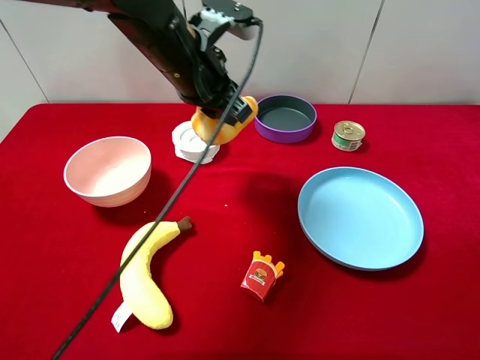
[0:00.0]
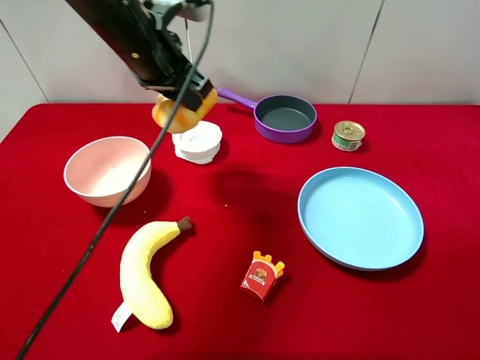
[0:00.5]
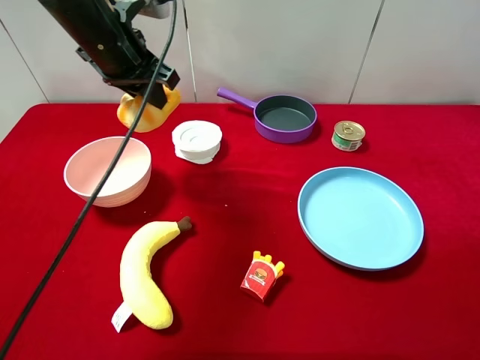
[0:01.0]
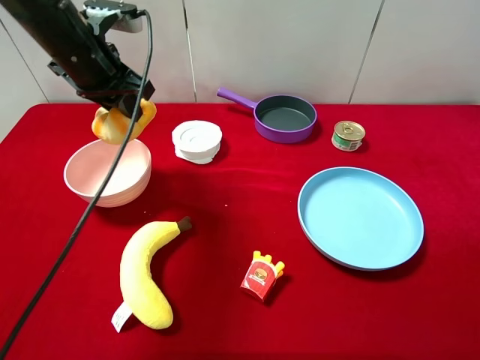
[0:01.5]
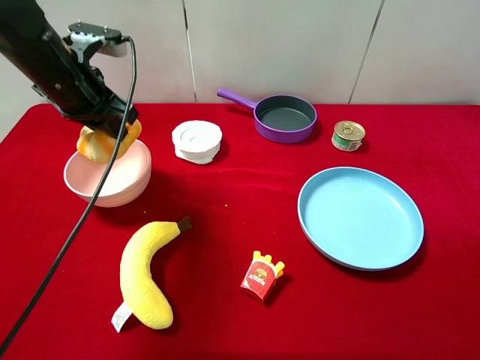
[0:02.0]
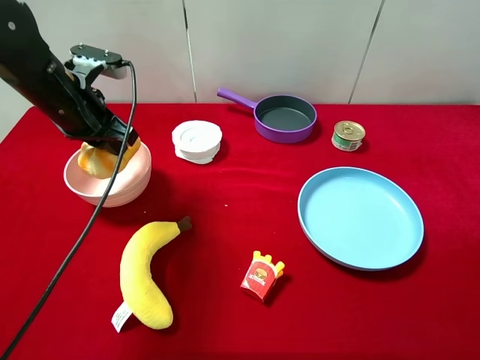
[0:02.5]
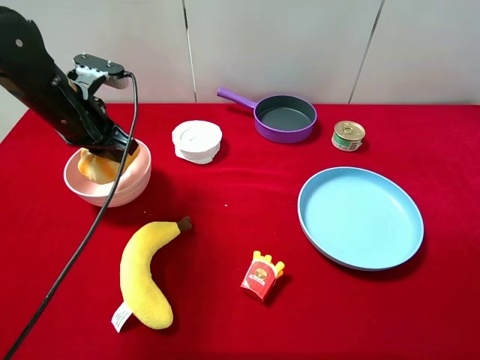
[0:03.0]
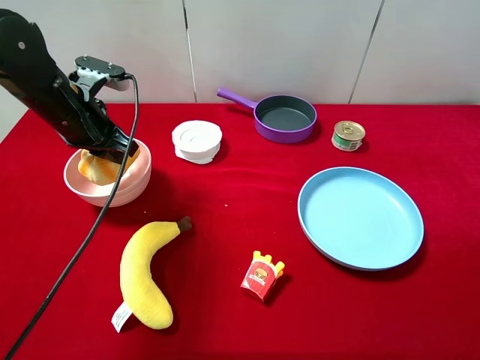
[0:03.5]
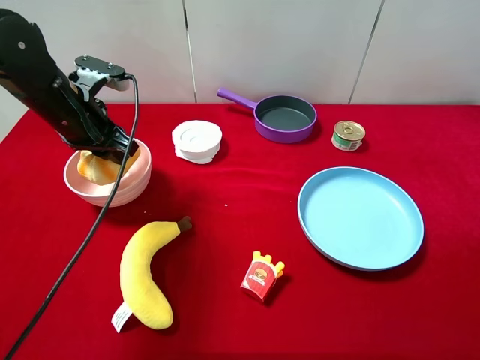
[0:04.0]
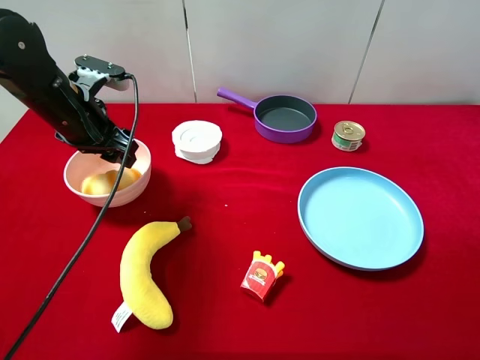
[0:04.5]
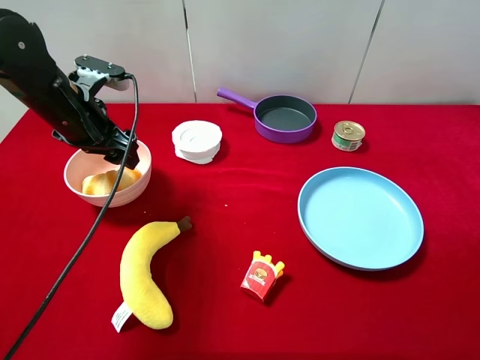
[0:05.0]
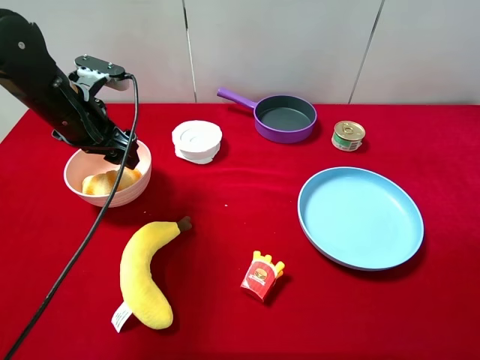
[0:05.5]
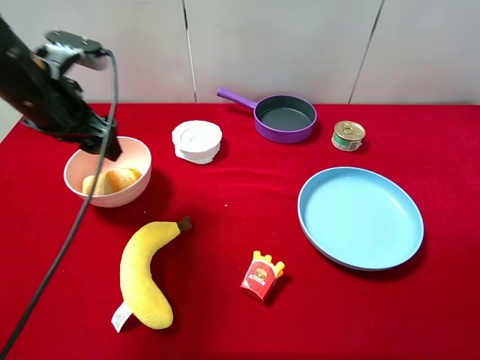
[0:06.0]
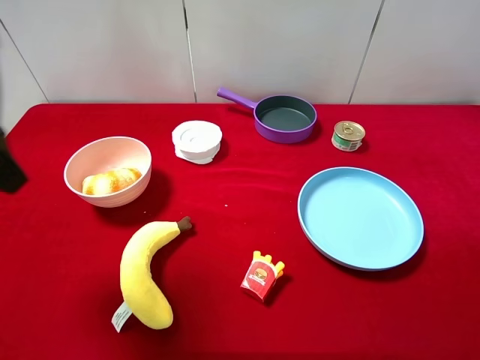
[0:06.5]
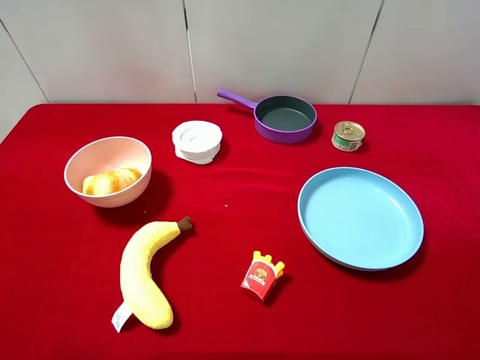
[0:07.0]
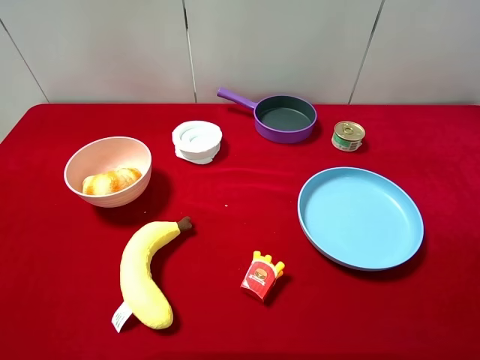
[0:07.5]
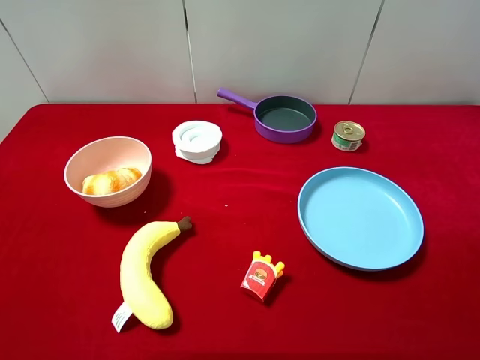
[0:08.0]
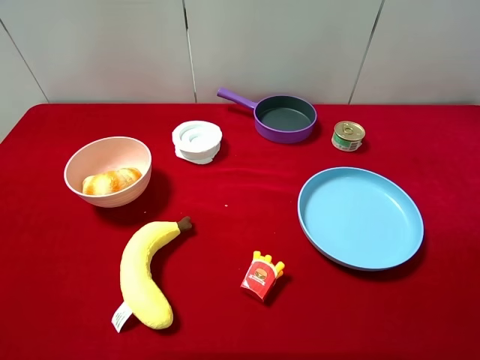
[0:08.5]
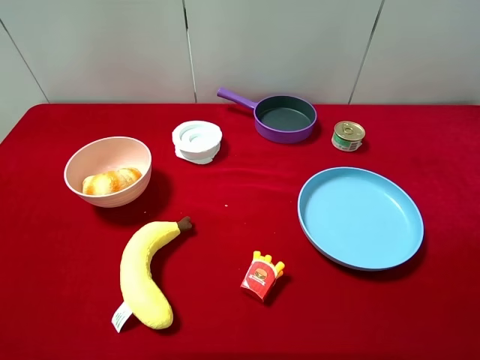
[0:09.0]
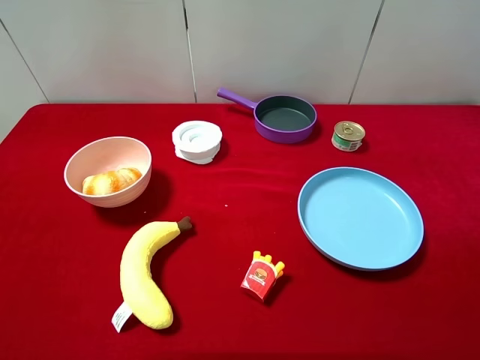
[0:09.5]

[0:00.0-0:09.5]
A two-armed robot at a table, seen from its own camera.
Task of the whole recording: pick up an item with a gripper and place it in a random container on the desktop.
0:00.0 to 0:02.0: The left gripper shifts about 15 cm to the left.
0:02.0 to 0:04.0: There are only small adjustments of the grippers.
0:04.0 to 0:05.5: The left gripper opens its fingers.
0:05.5 to 0:07.5: The left gripper moves backward, approximately 30 cm.

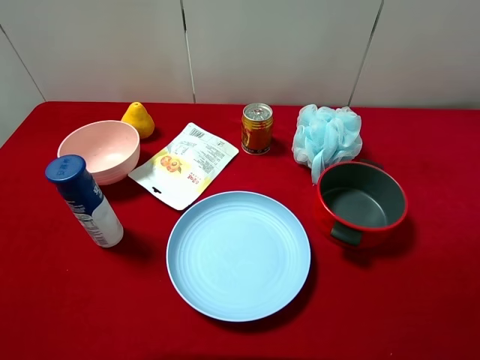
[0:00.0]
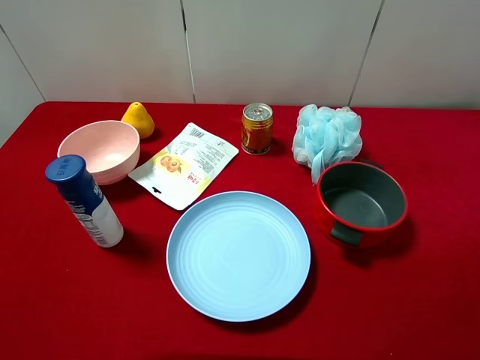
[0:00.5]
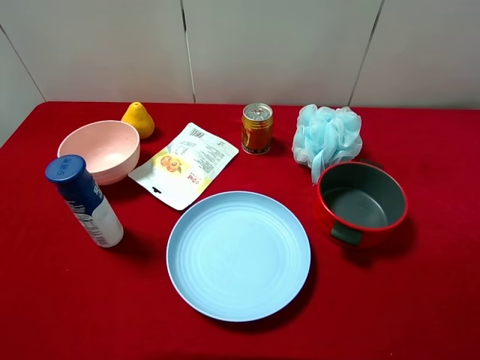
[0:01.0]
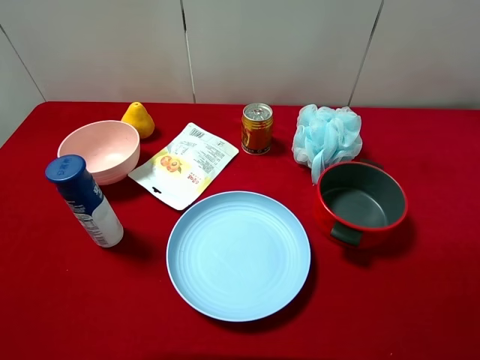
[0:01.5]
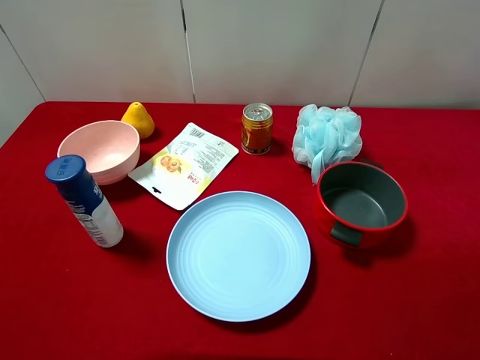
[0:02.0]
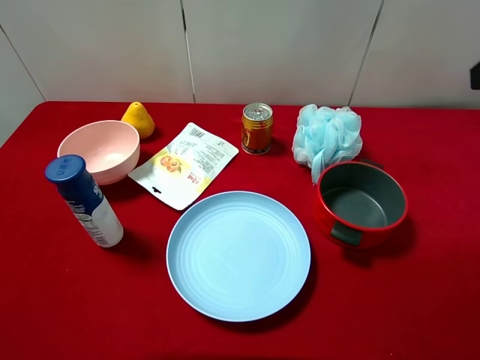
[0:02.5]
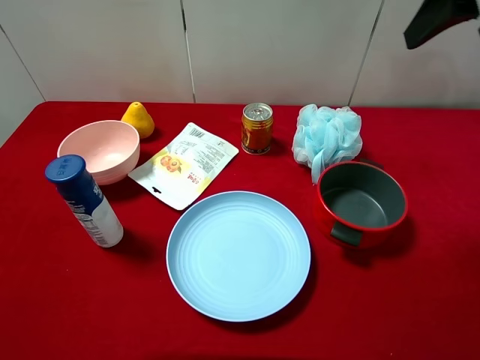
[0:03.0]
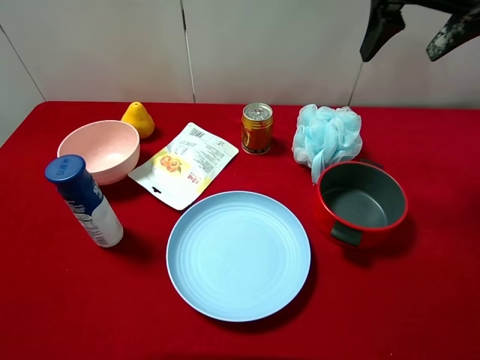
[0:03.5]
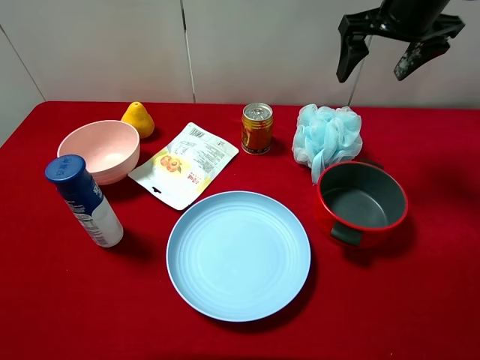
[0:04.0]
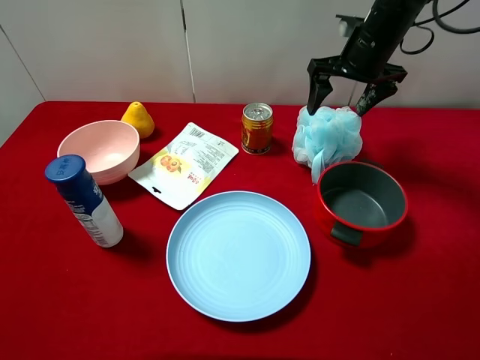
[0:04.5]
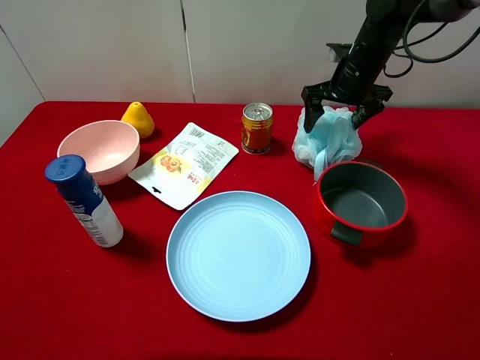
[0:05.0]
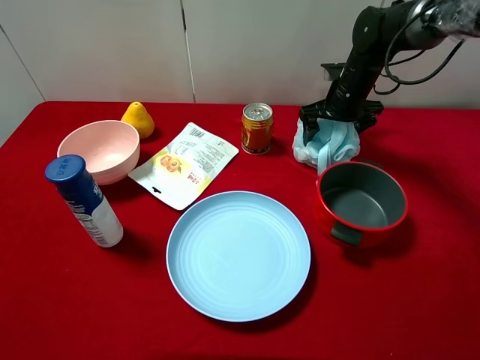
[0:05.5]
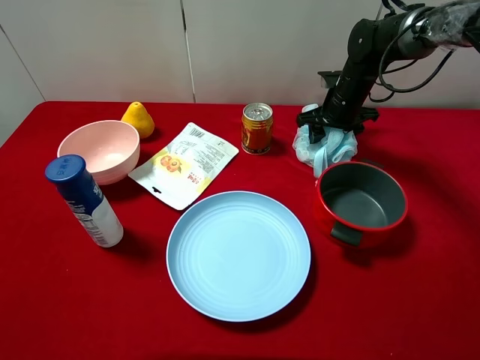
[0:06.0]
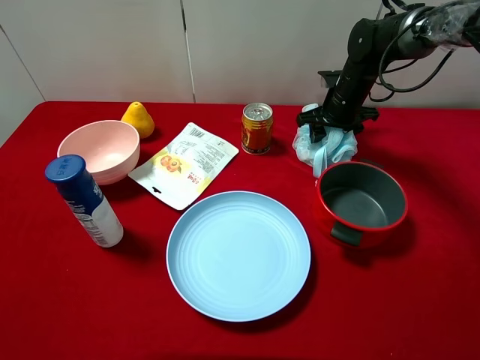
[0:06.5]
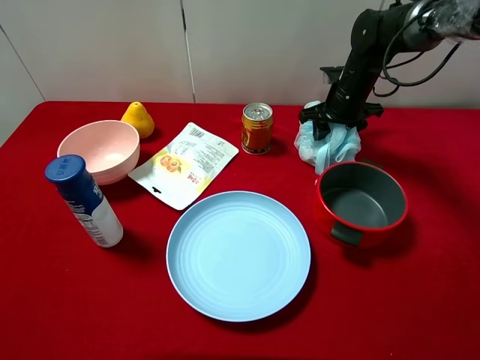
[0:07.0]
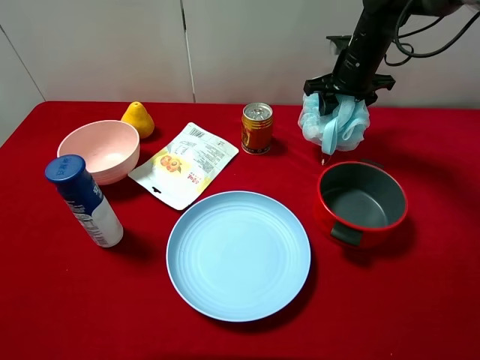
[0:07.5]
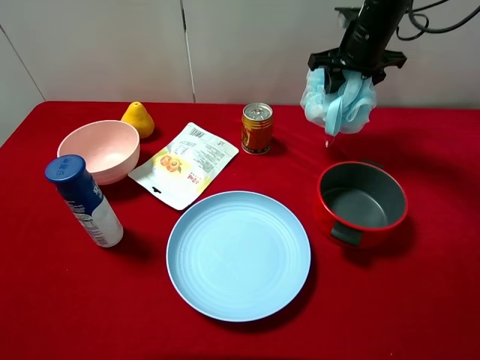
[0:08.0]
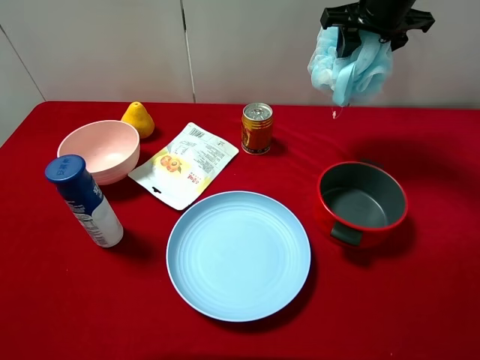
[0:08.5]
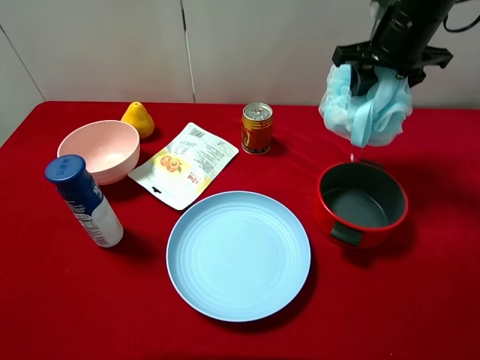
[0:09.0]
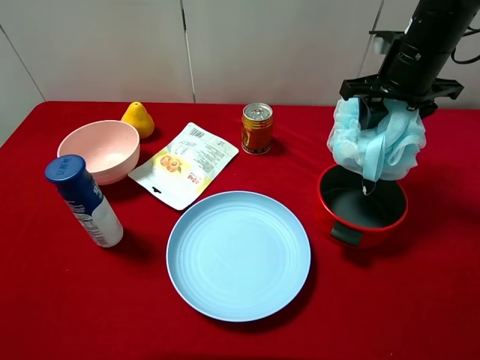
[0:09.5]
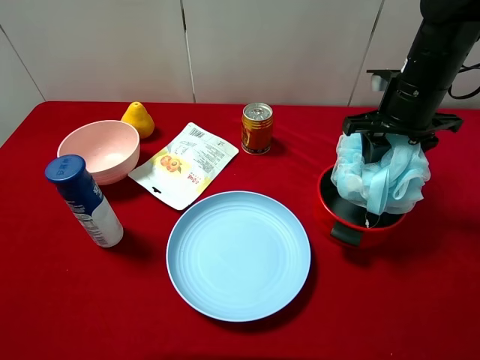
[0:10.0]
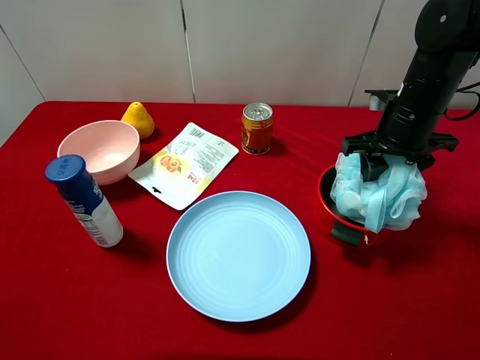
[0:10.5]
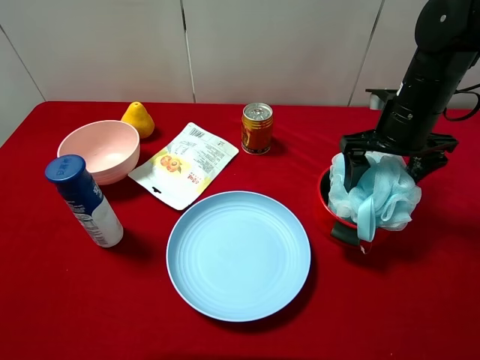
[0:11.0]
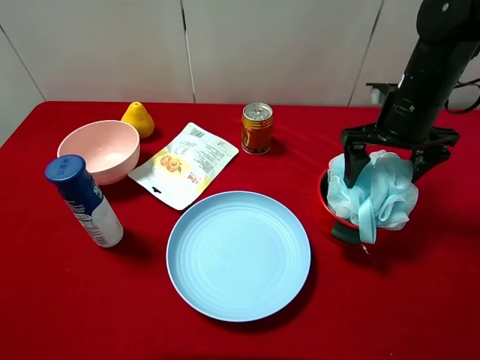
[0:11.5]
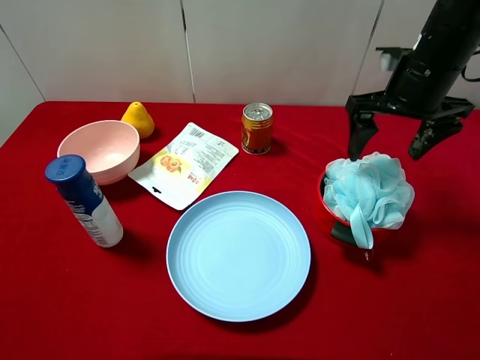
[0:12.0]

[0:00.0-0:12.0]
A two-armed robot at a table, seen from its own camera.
Task of the whole recording: pick up an item with a gripper and place it in a random container on the desktop.
0:02.0 to 0:04.0: The right gripper shifts approximately 30 cm forward.
0:04.0 to 0:06.0: The right gripper goes roughly 20 cm downward, and closes its fingers.
0:06.0 to 0:08.0: The right gripper moves upward, roughly 10 cm.
0:08.0 to 0:10.0: The right gripper moves backward, approximately 15 cm.
0:10.0 to 0:12.0: The right gripper opens.

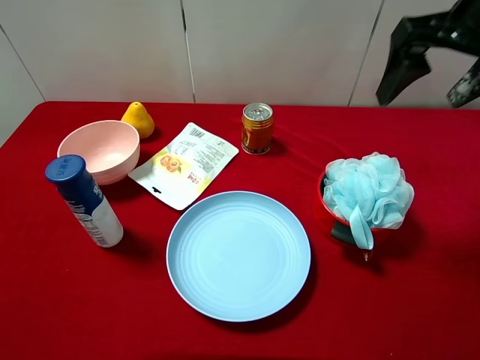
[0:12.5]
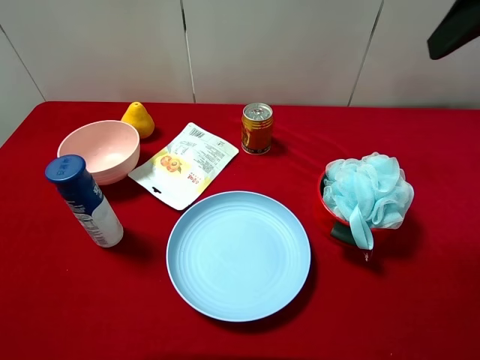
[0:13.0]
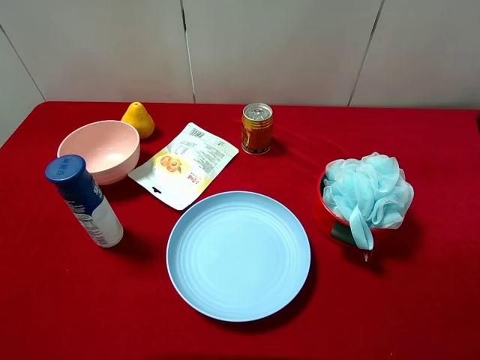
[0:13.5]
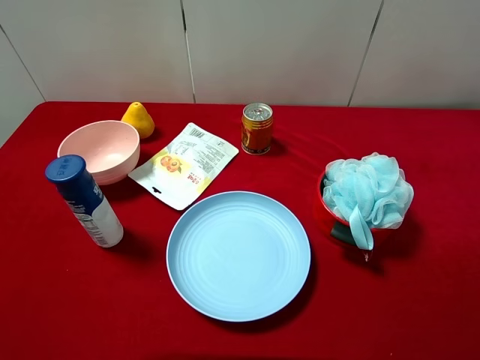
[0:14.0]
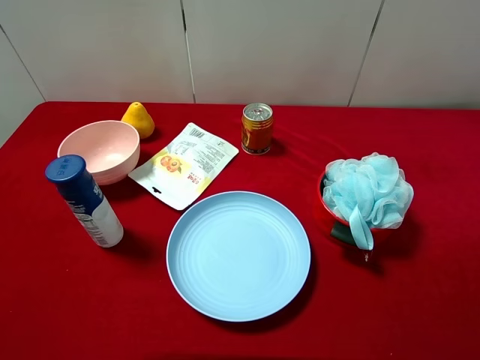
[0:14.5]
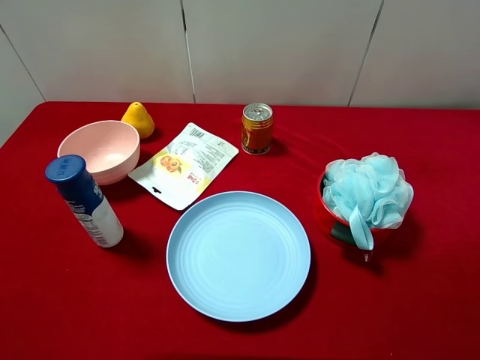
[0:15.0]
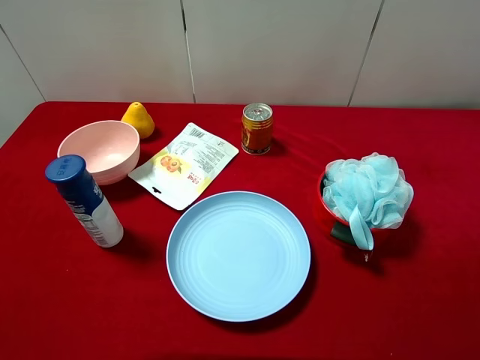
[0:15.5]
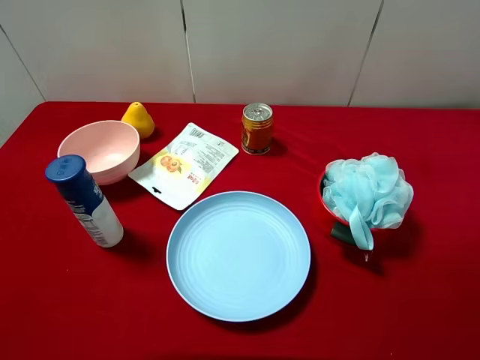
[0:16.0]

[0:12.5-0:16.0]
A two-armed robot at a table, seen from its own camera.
Task of the whole recording: pick up an item with a gripper and place it in a random container on the desktop.
0:12.5 to 0:14.5: The right gripper heads backward, covering about 30 cm.
0:14.5 to 0:16.0: Neither gripper changes place.
